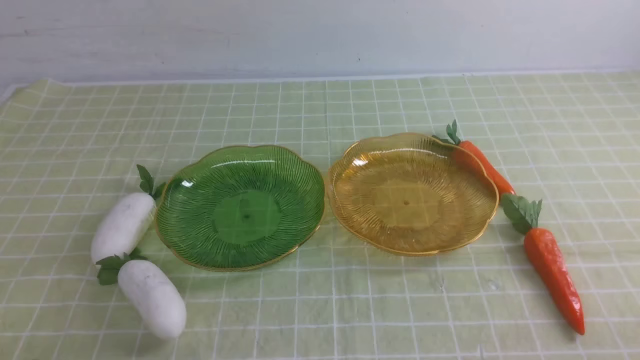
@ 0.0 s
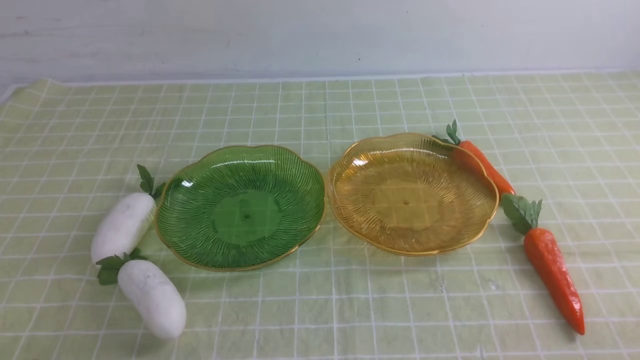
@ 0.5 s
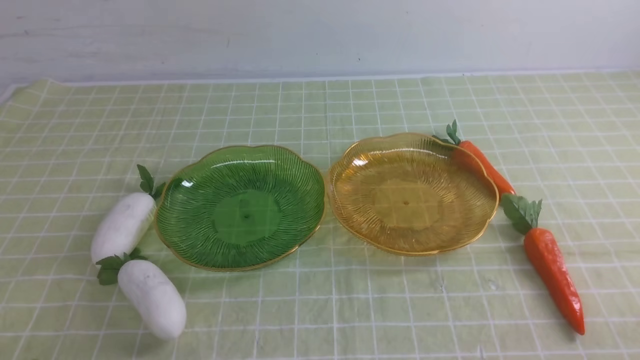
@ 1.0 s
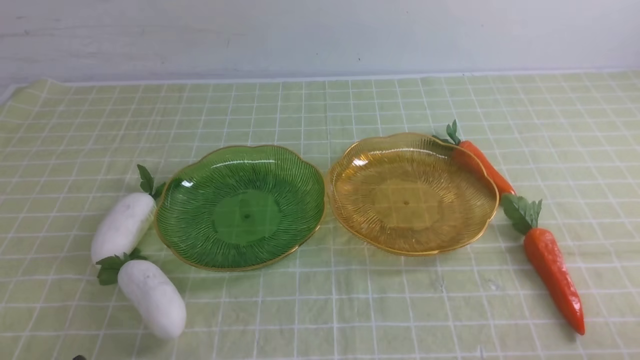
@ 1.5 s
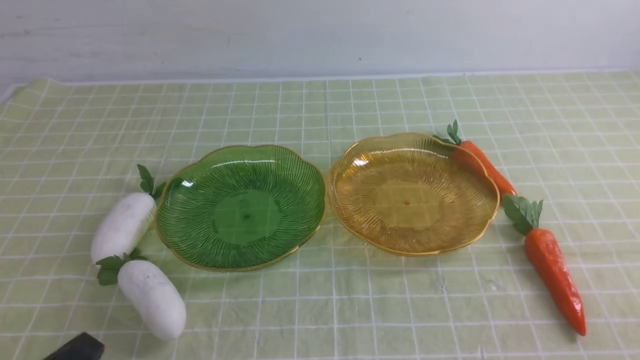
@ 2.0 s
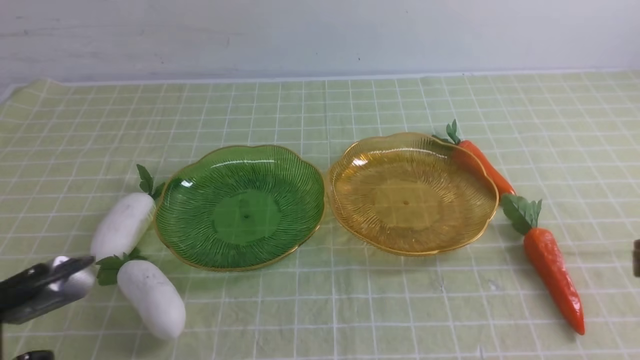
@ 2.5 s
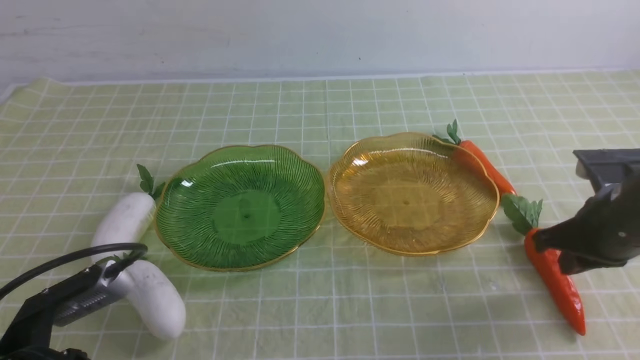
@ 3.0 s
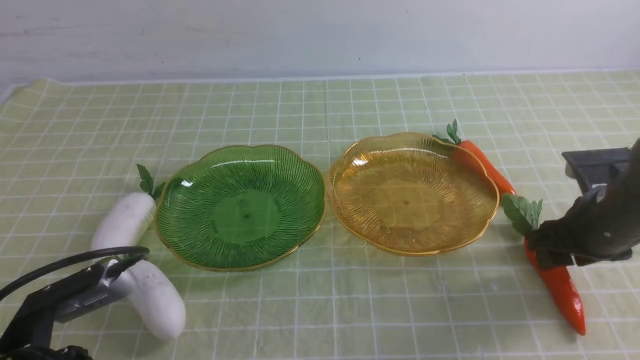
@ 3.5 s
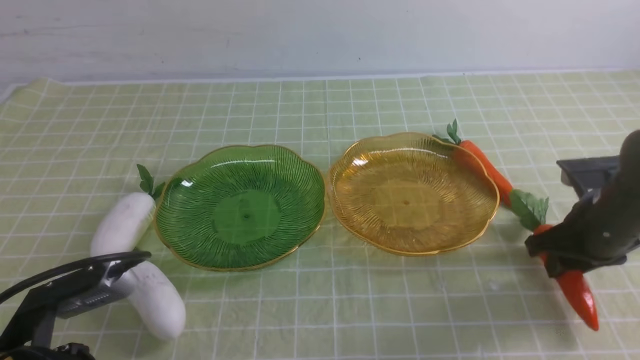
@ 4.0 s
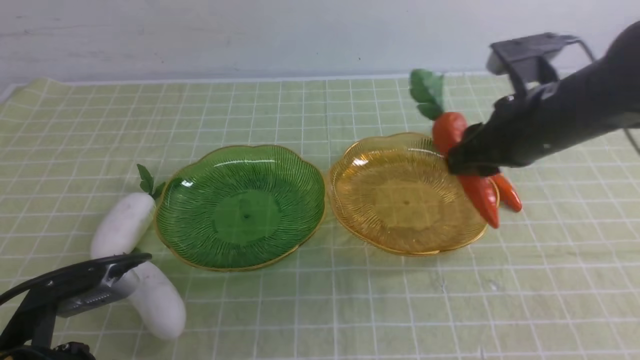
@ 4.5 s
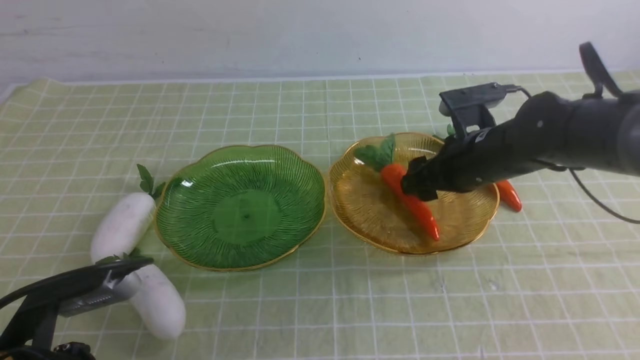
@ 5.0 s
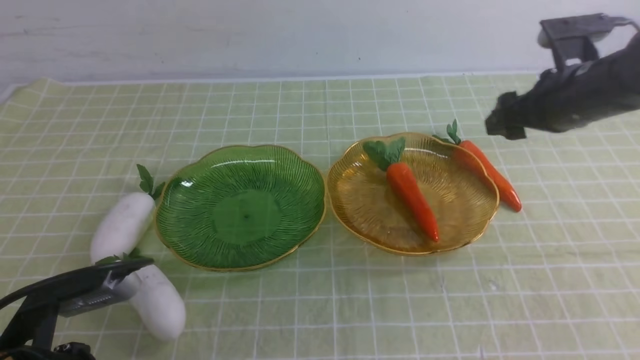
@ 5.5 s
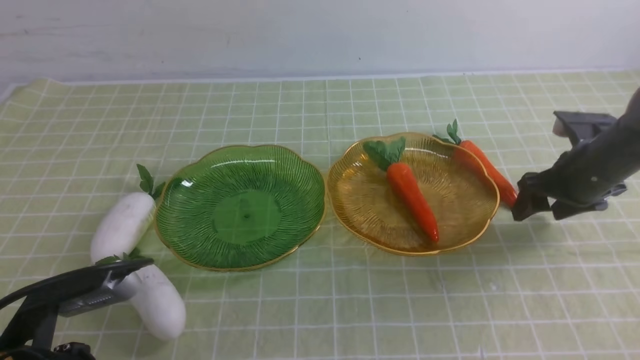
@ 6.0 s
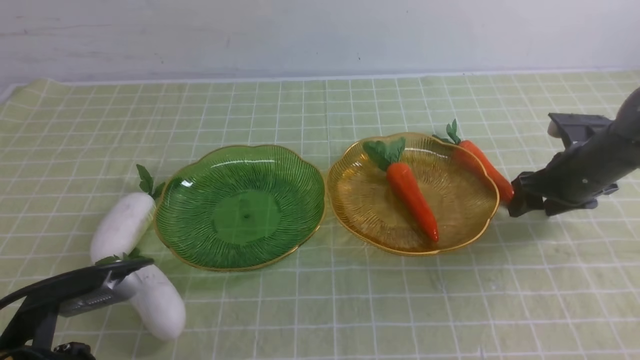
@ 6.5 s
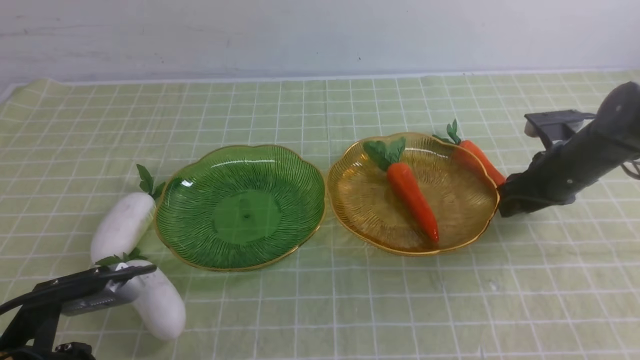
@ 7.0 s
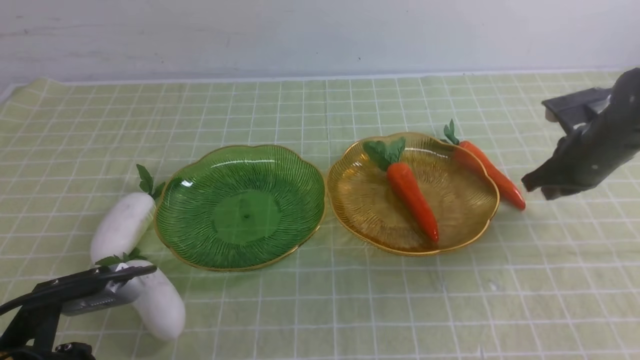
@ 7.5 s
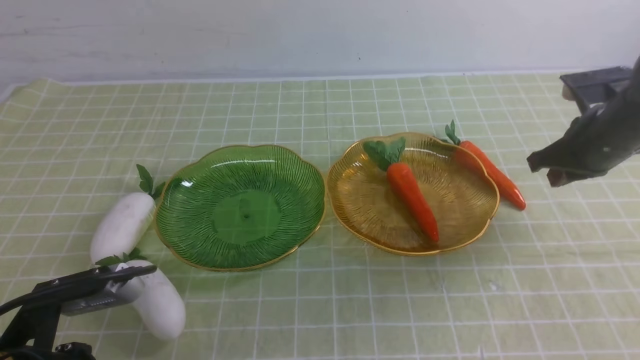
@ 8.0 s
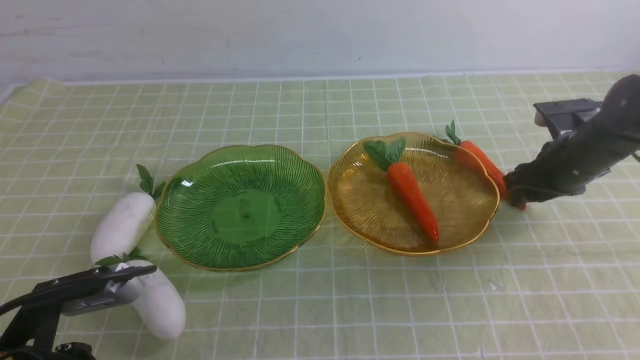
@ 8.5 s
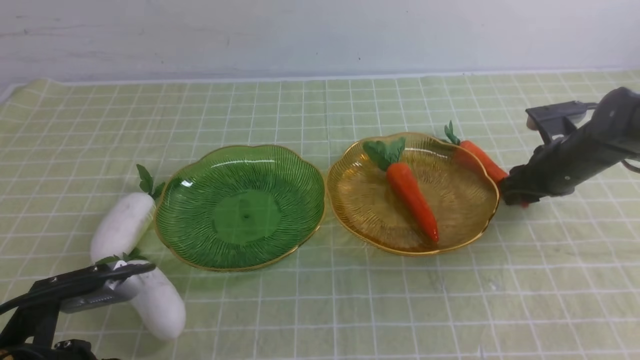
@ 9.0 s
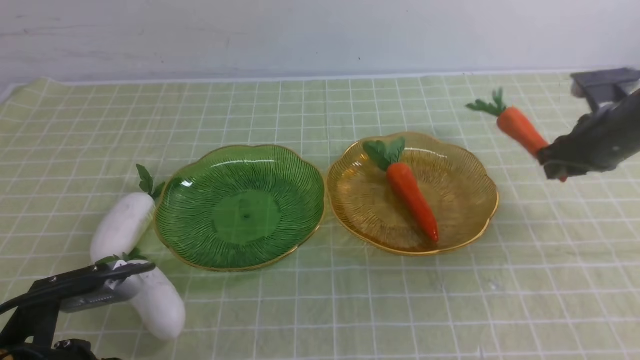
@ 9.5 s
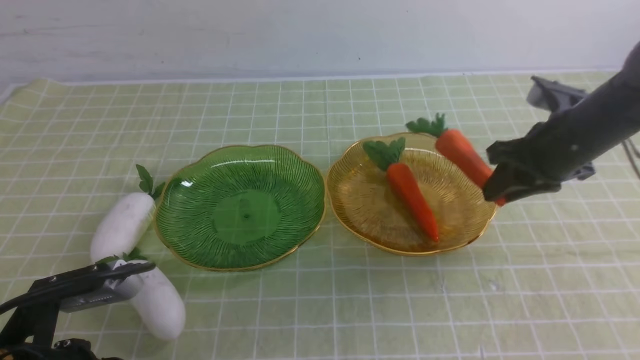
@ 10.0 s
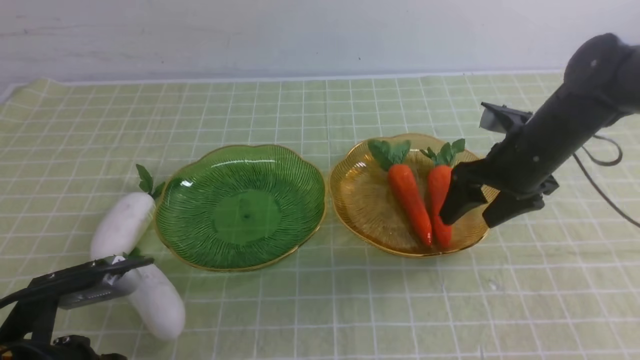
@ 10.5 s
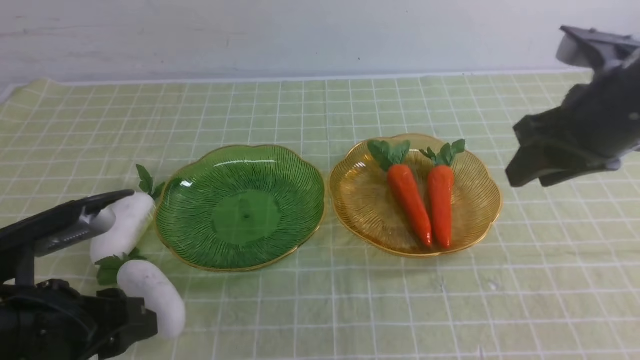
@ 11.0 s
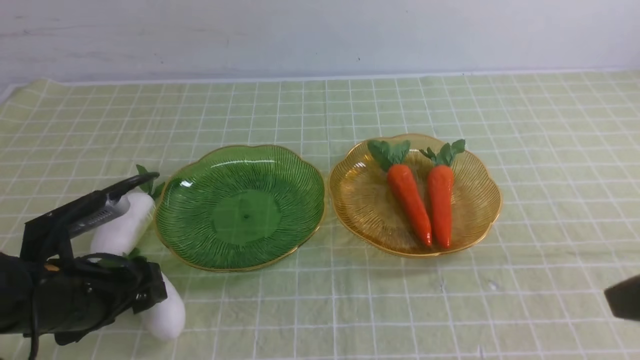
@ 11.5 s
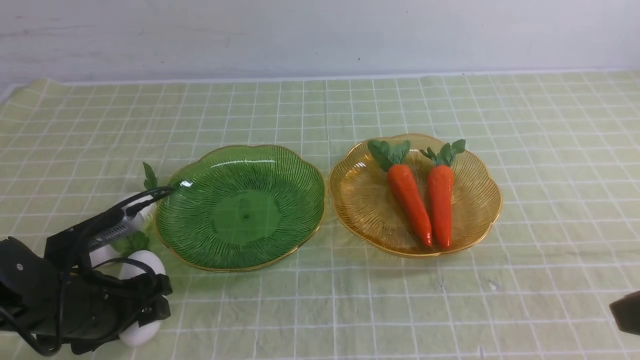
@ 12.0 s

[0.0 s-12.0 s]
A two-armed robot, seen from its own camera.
Step, 0.0 to 5.5 s: use the right arm to grab a carrot and put it into the right plate.
Step, 6.0 to 10.5 s: use the right arm to grab a carrot and put it into the right plate.
2.0 to 4.0 s: The right gripper moves forward, some 25 cm, and opens its fingers. Meanwhile the left gripper travels forward by roughly 10 cm.
4.0 to 6.0 s: The right gripper goes roughly 10 cm forward, reaches about 10 cm to the left, then returns, and opens up.
6.0 to 8.0 s: The right gripper closes.
8.0 to 10.0 s: The right gripper heads to the left, covering some 5 cm, and travels downward and back again, approximately 5 cm each way.
10.0 to 12.0 s: The right gripper travels backward and upward by some 30 cm, and opens, then closes once more. The left gripper moves forward and downward, roughly 10 cm, and opens.

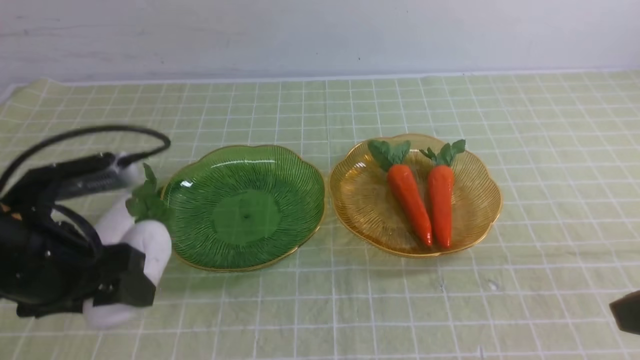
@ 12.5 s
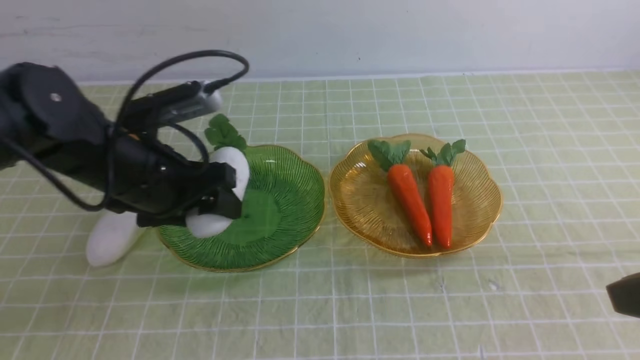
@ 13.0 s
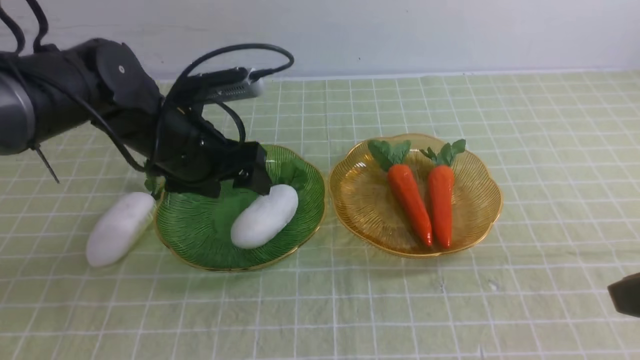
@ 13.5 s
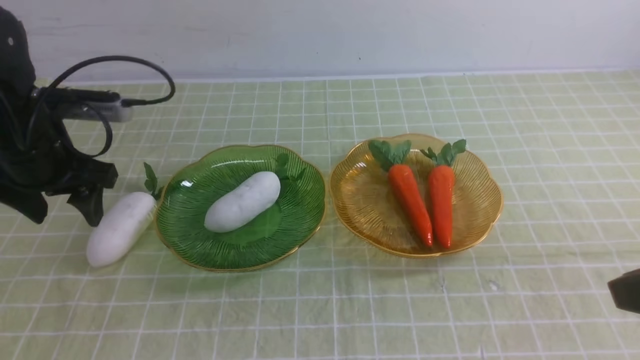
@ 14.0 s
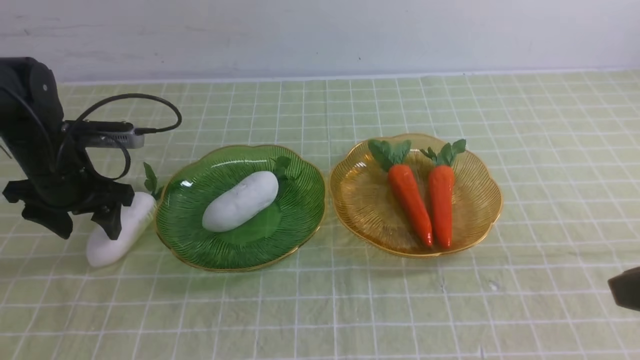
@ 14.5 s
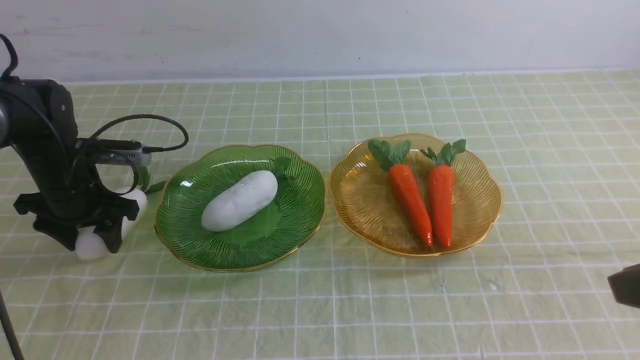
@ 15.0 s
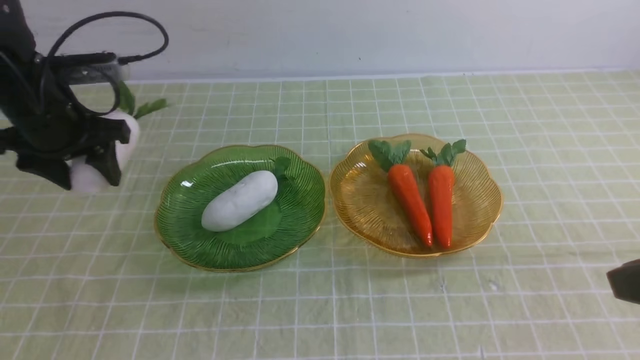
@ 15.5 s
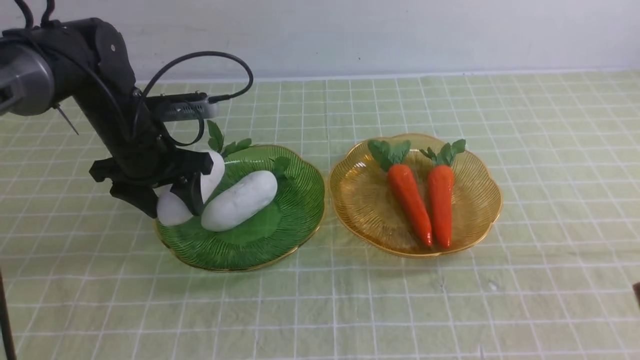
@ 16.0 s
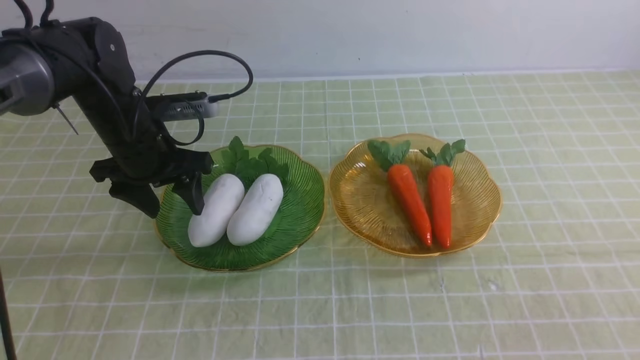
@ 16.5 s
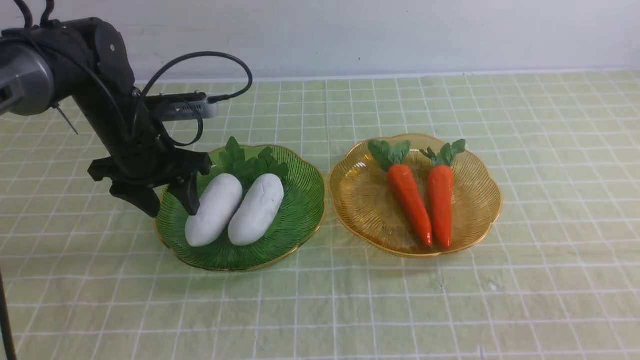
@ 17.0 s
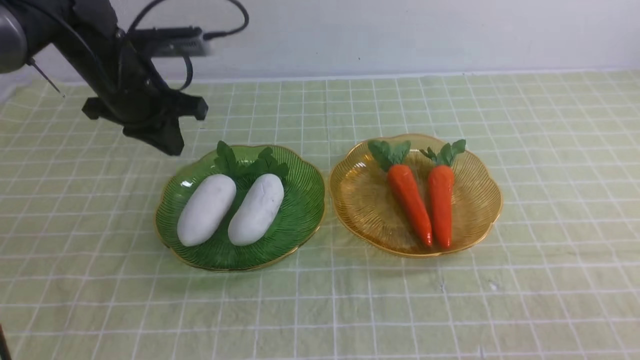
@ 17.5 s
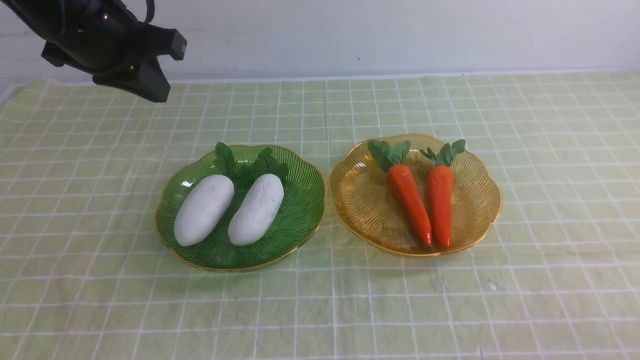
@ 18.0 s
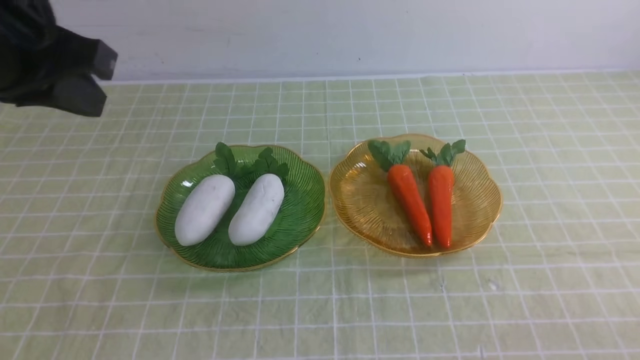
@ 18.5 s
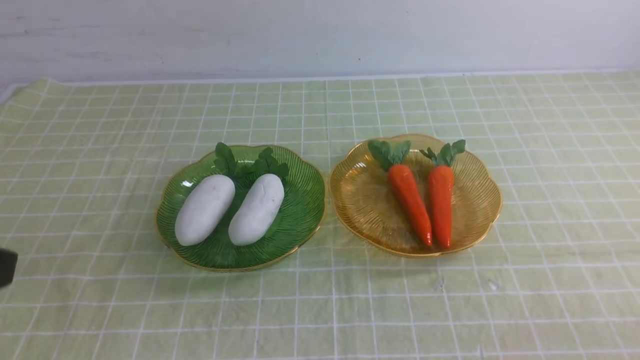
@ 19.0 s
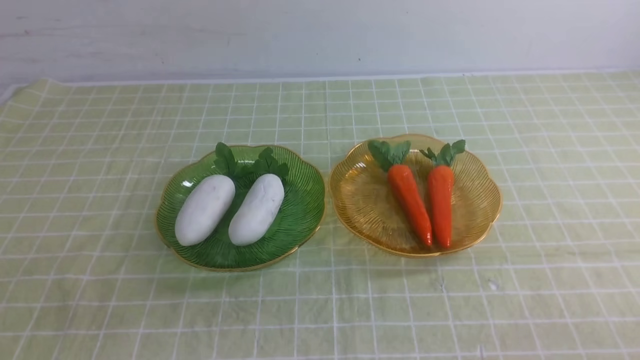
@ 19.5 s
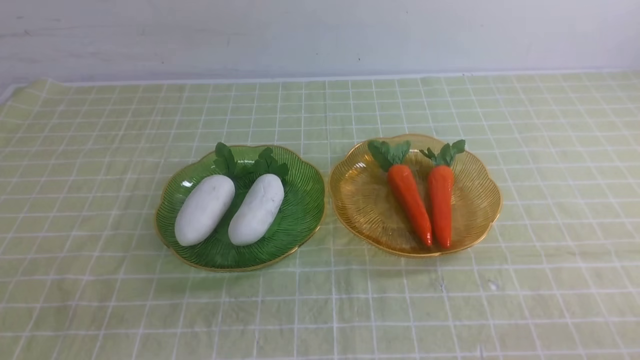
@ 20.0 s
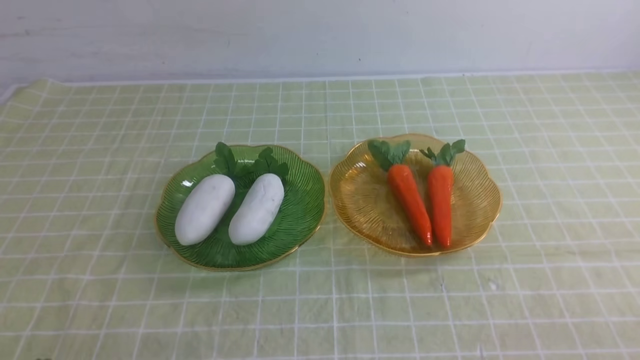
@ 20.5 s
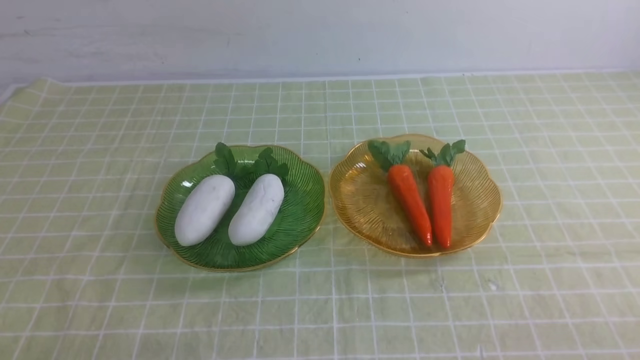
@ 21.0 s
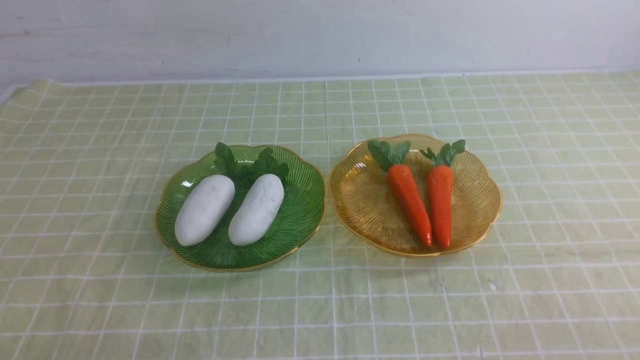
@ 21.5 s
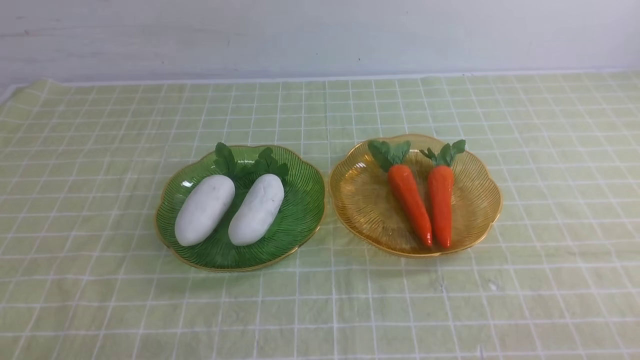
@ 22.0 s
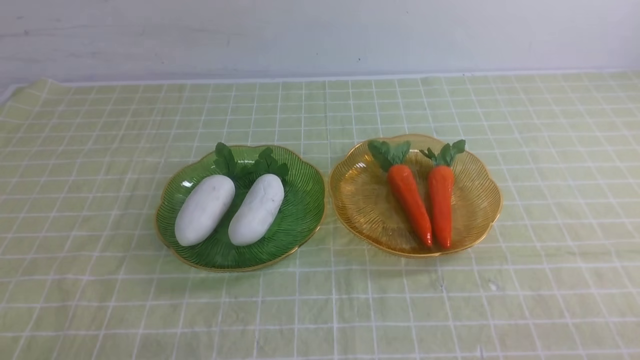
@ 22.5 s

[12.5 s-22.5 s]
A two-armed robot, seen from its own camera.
Step, 12.5 to 16.5 s: use the left arm to grab a radish and put it into the left plate.
12.5 to 14.5 s: The left gripper moves forward, to the left and downward, some 20 cm.
14.5 to 16.5 s: The left gripper goes roughly 10 cm to the right. Meanwhile the right gripper is displaced backward by roughly 15 cm.
16.5 to 18.5 s: The left gripper is displaced upward and backward by some 25 cm, and closes; the right gripper travels downward by some 15 cm.
18.5 to 20.5 s: The left gripper heads downward and backward, covering about 30 cm.
